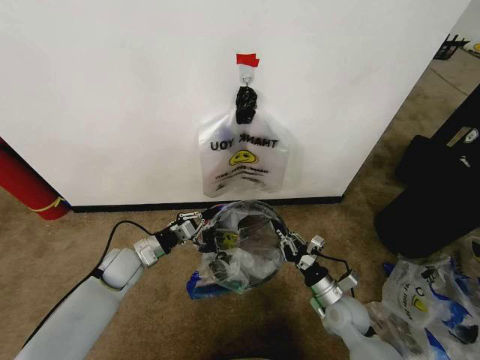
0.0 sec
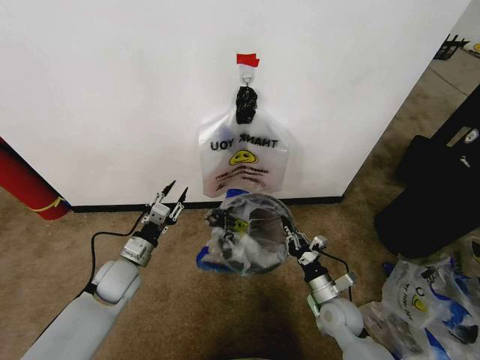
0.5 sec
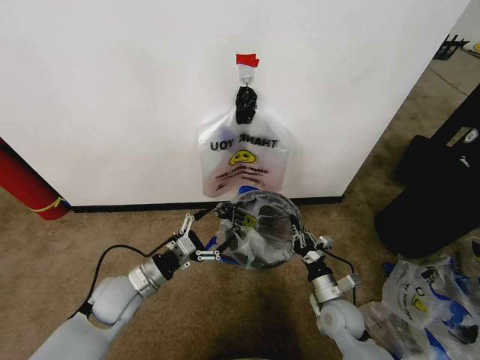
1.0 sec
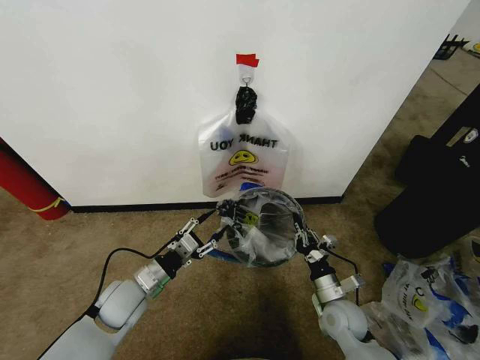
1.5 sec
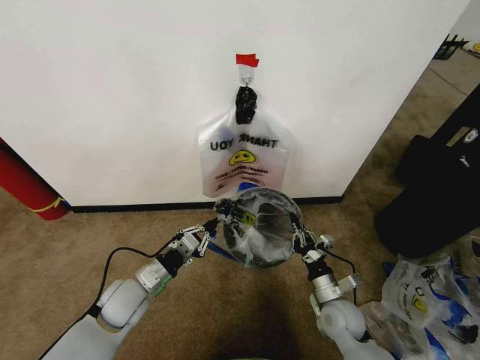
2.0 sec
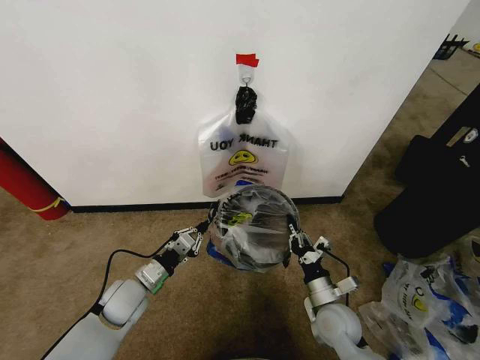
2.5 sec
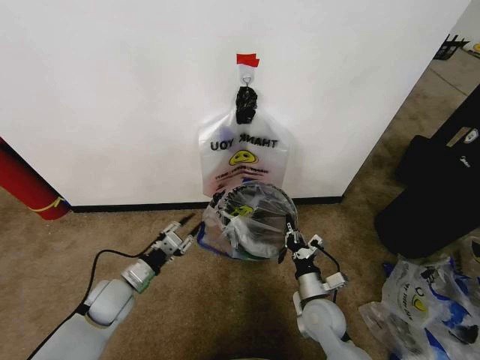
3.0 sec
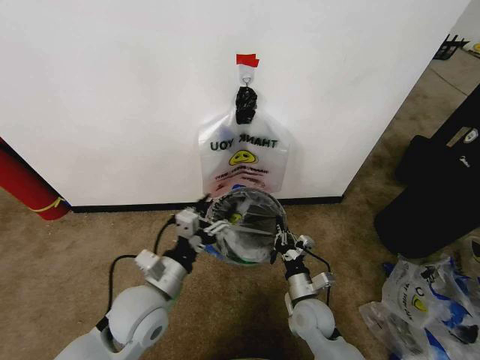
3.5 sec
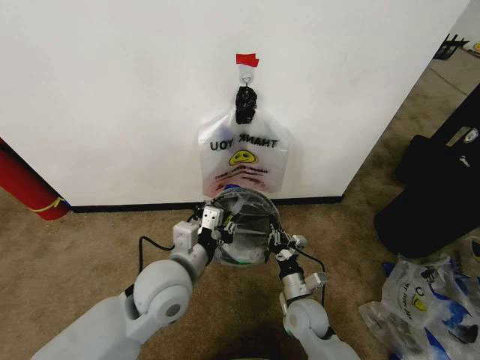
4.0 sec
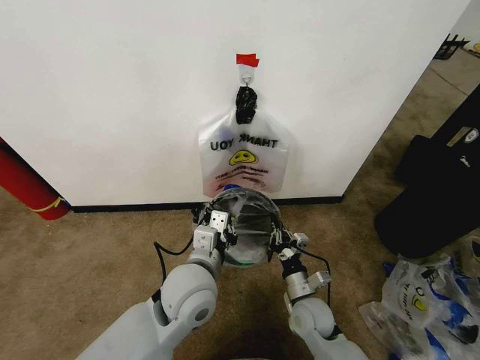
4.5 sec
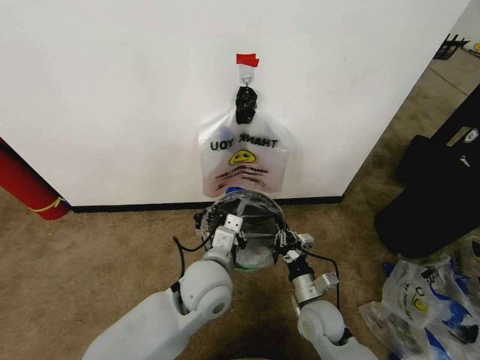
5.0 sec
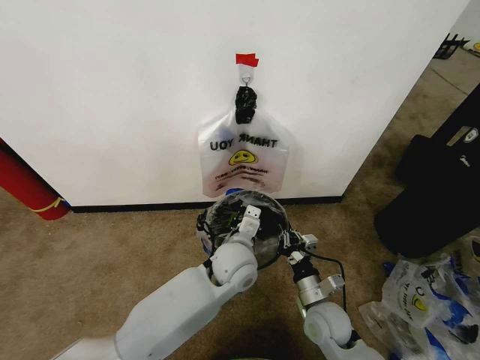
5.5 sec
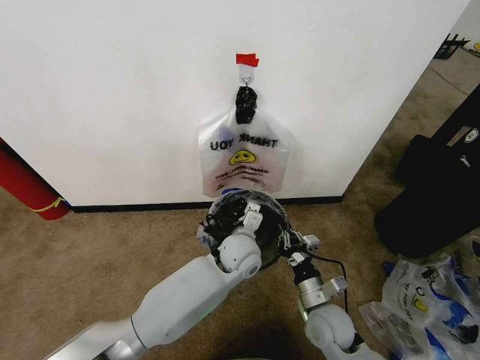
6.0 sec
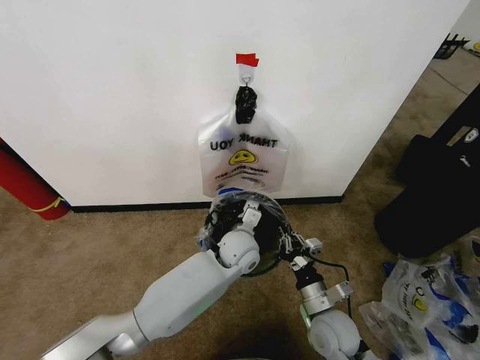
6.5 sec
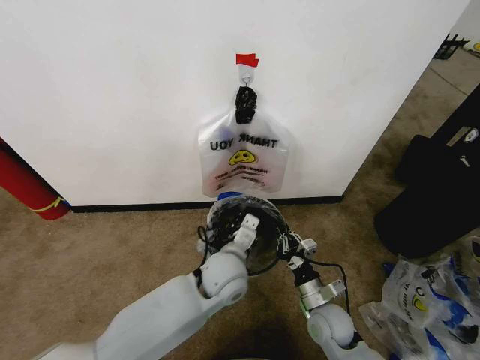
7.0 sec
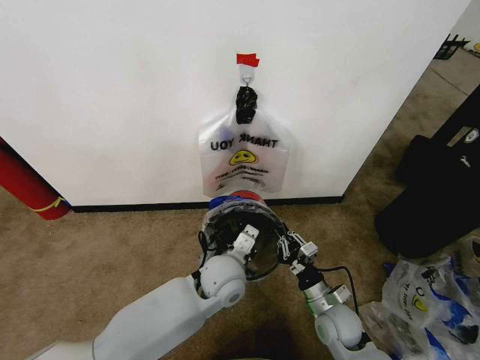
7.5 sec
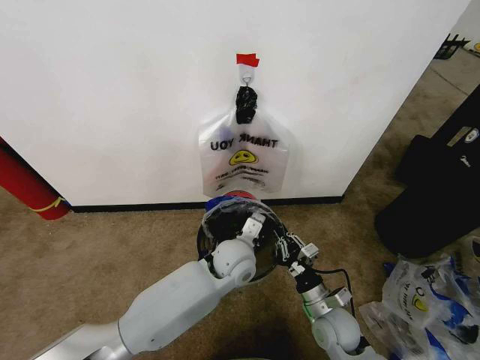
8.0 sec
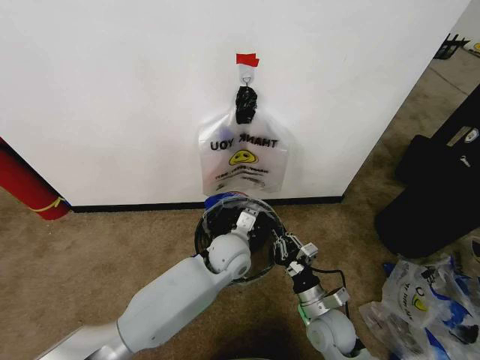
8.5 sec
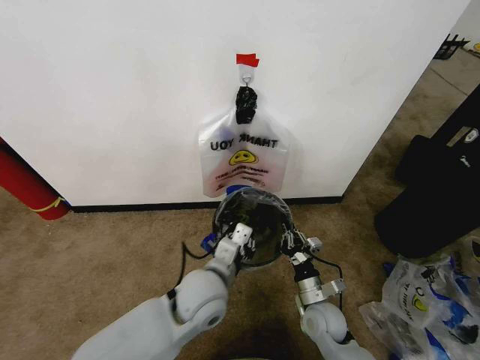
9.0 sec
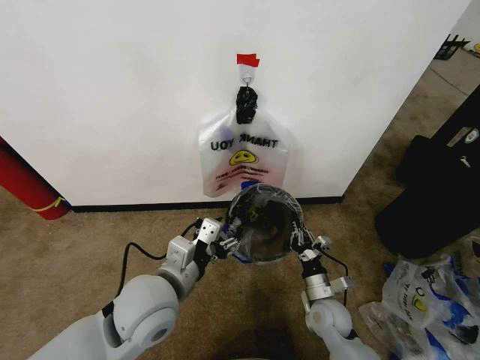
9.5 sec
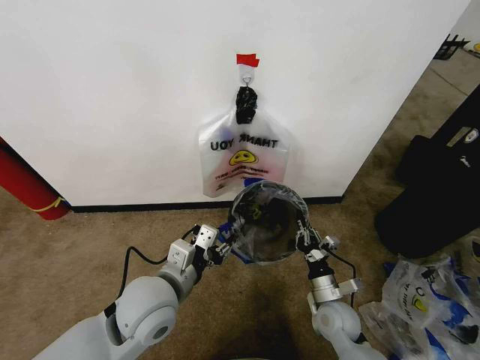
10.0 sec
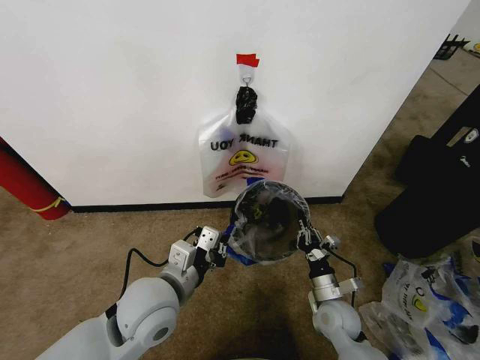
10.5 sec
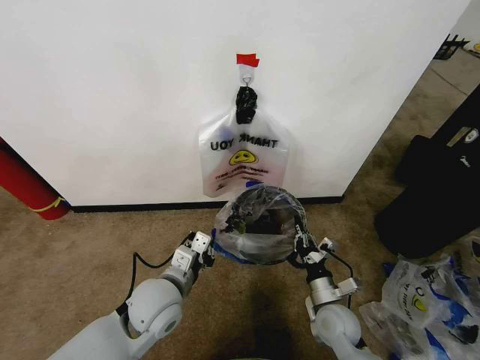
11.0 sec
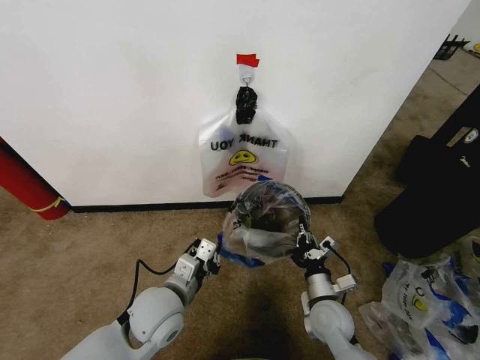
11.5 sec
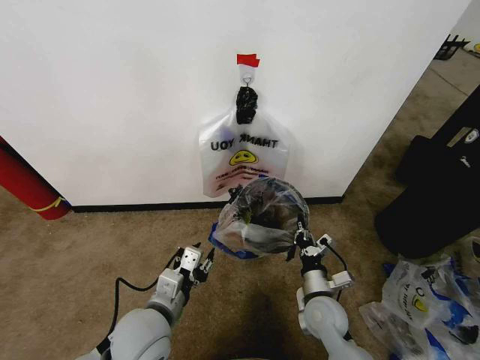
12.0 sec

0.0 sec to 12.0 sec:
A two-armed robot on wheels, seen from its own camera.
Task of the whole recording: Pick up the garbage bag from the wall and place it over the trash bin.
0.0 sec to 2.0 sec: The left gripper shifts some 10 cm backward, and opens and closes again.
2.0 sec to 4.0 sec: The left gripper heads upward and to the right, covering about 15 cm, and opens, then closes again. The right gripper is displaced to the left by some 10 cm.
4.0 sec to 6.0 sec: The right gripper moves some 5 cm. The left gripper moves to the right, forward and downward, approximately 20 cm.
6.0 sec to 8.0 sec: The left gripper reaches approximately 5 cm backward, then returns.
8.0 sec to 10.0 sec: The left gripper moves to the left, backward and upward, some 20 cm, and opens its fingers.
10.0 sec to 12.0 sec: The left gripper heads downward, covering about 5 cm, and closes, then opens again.

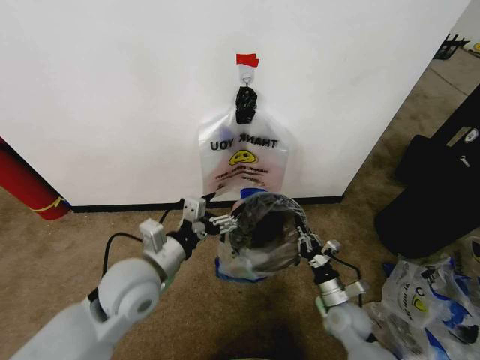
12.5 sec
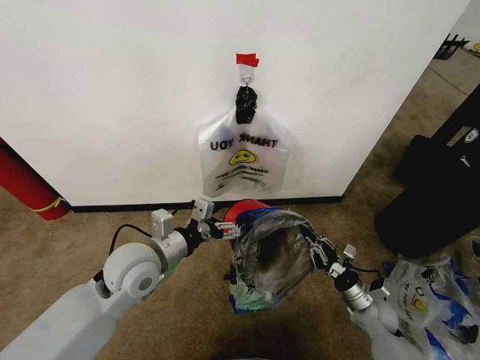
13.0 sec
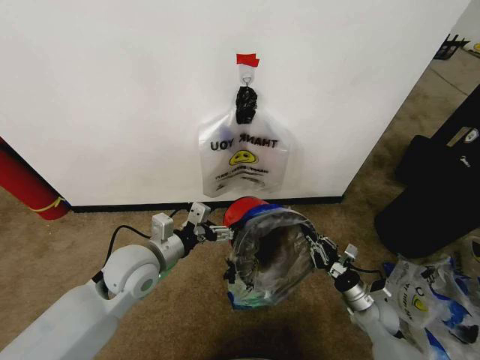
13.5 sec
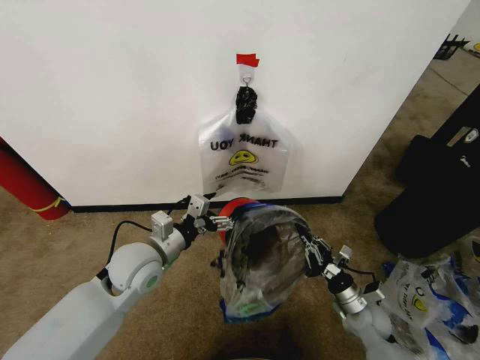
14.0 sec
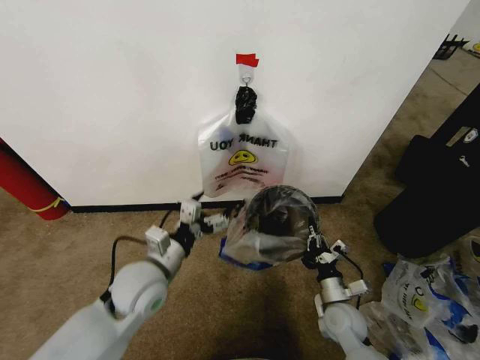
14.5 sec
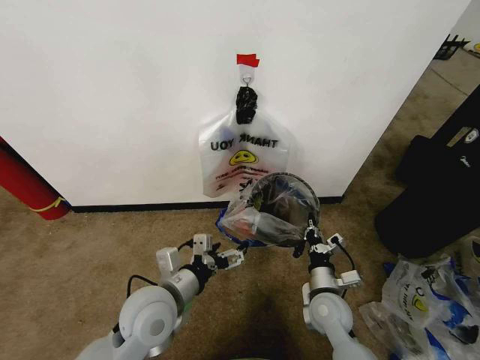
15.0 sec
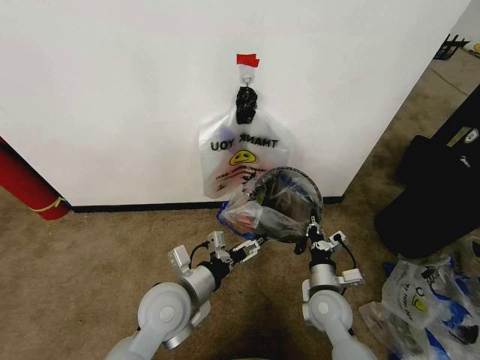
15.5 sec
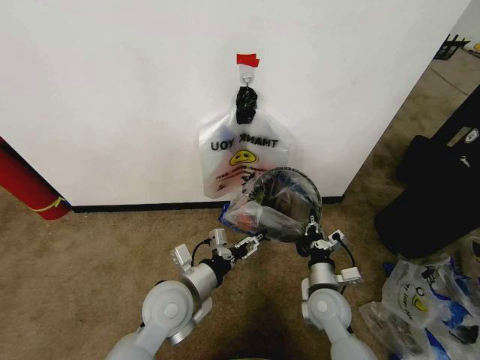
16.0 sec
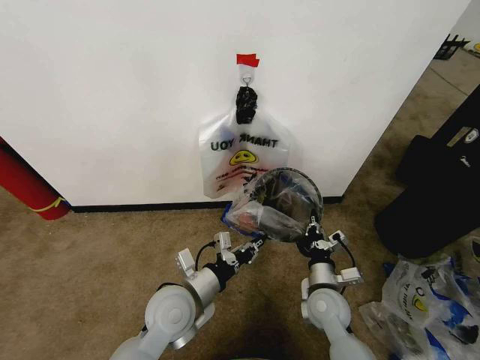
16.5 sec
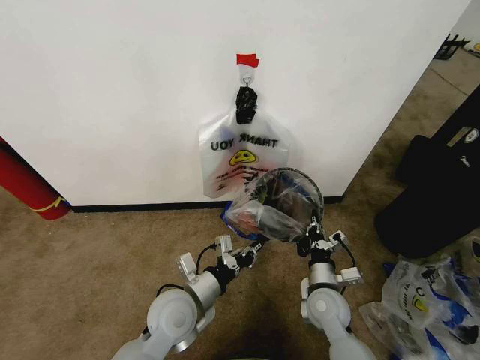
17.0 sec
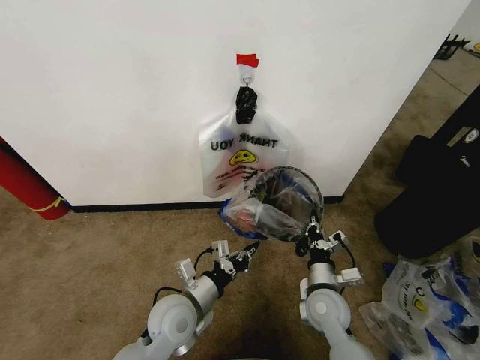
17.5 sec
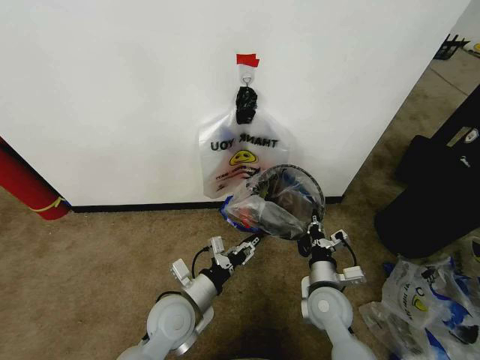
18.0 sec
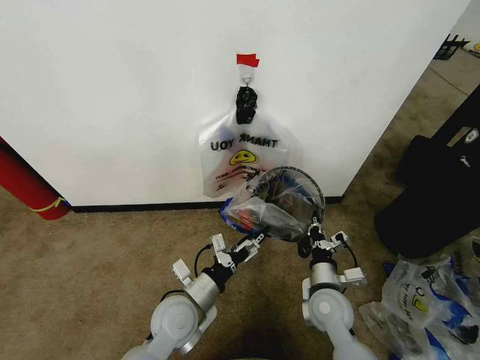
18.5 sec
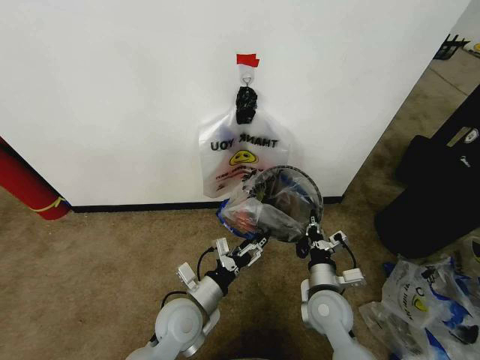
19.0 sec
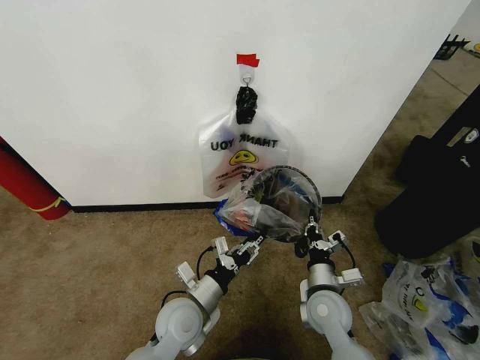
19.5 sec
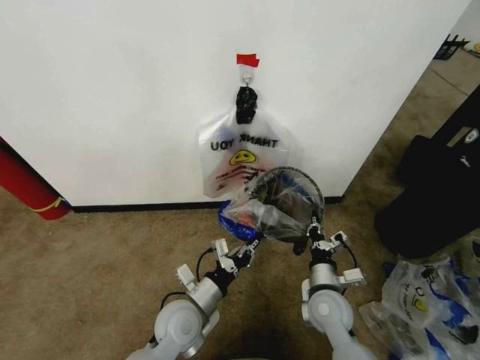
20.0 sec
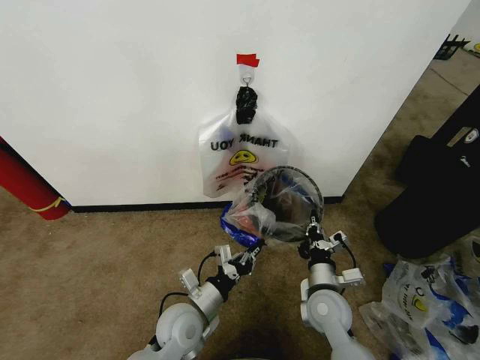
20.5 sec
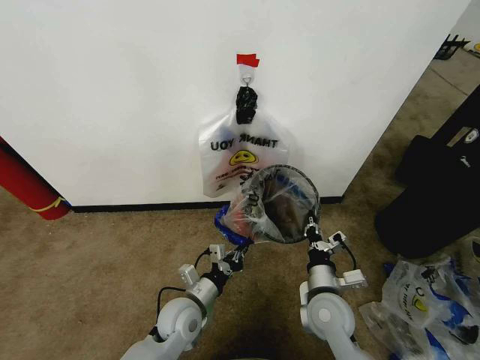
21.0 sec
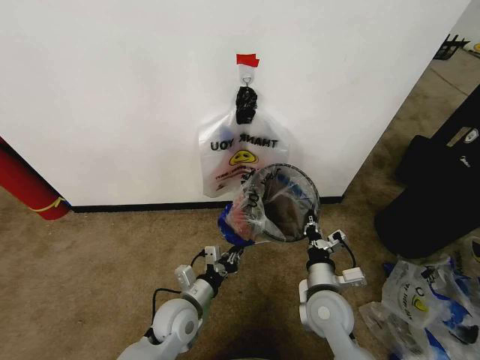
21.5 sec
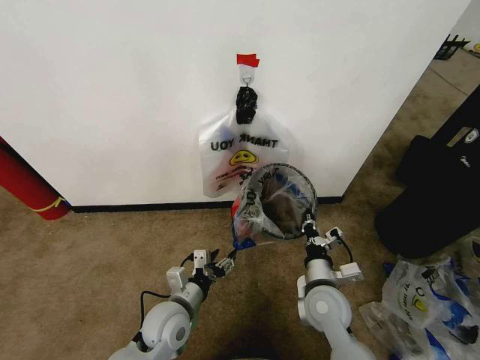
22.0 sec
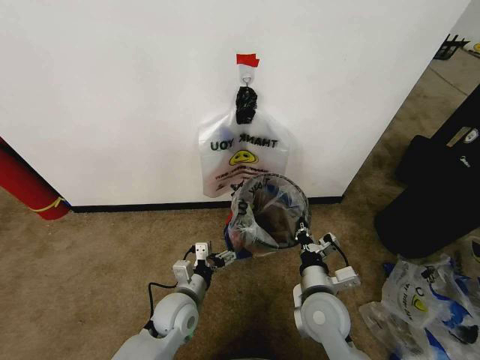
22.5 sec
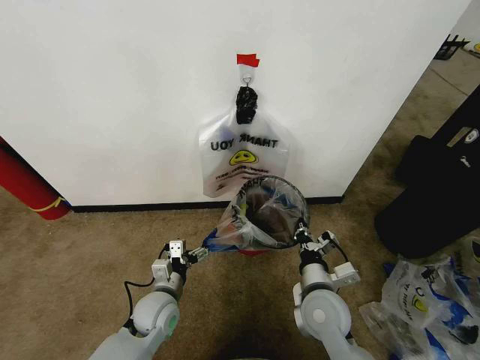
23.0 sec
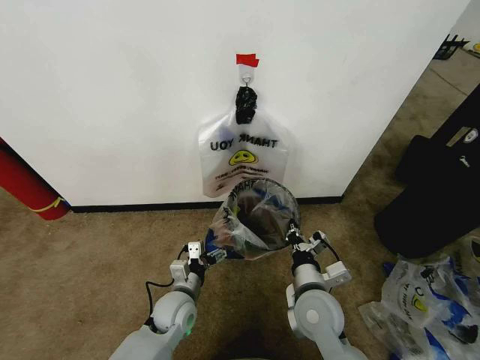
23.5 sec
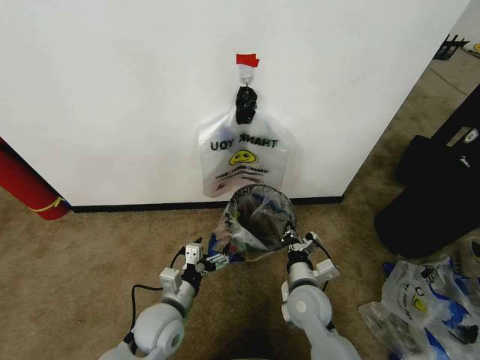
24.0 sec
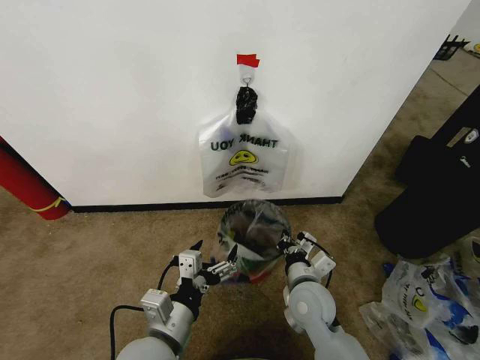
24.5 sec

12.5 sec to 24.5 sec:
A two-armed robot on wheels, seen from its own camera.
Task of the whole recording: Pick up the garbage bag from the wall and place it over the trash bin.
12.5 sec to 14.5 sec: The right gripper travels to the right and back again, approximately 10 cm each way. Meanwhile the left gripper changes place by roughly 5 cm.
14.5 sec to 16.5 sec: The left gripper goes some 5 cm to the right, and closes up. Meanwhile the right gripper shifts approximately 10 cm upward and to the left.
16.5 sec to 18.5 sec: The left gripper opens.
18.5 sec to 20.5 sec: The left gripper closes up.
20.5 sec to 22.5 sec: The left gripper opens its fingers.
22.5 sec to 24.5 sec: The left gripper shifts approximately 15 cm upward and backward.

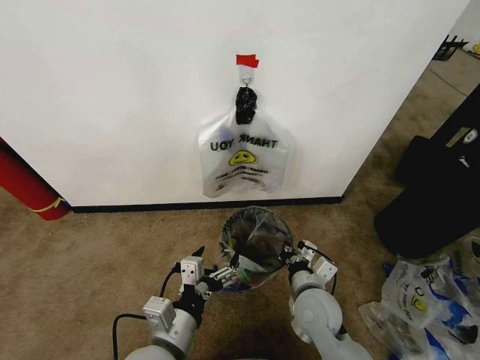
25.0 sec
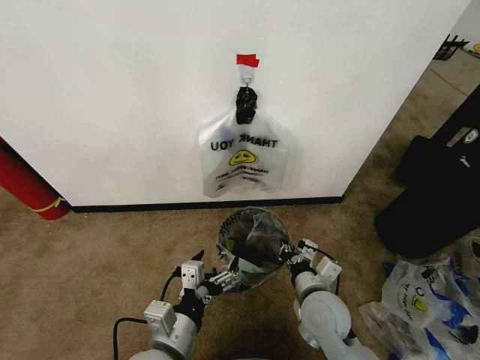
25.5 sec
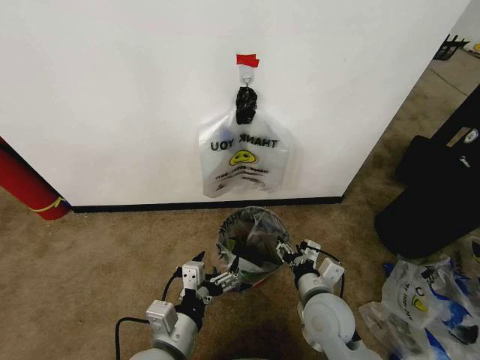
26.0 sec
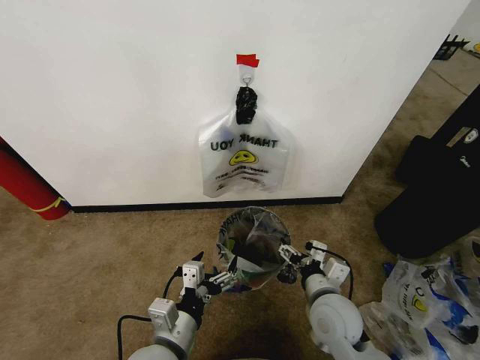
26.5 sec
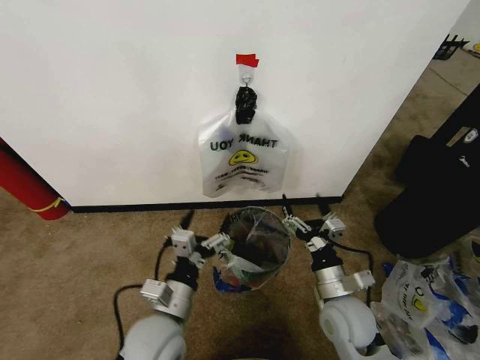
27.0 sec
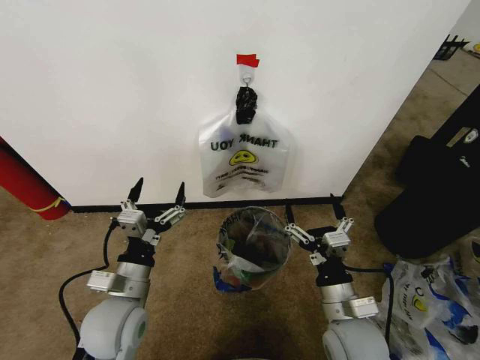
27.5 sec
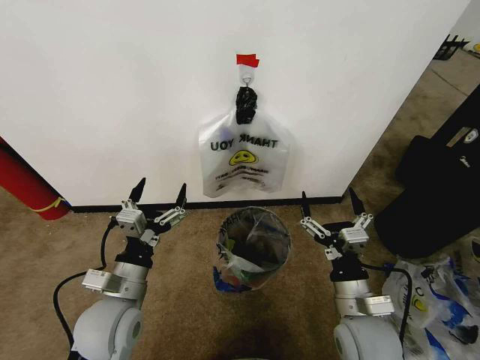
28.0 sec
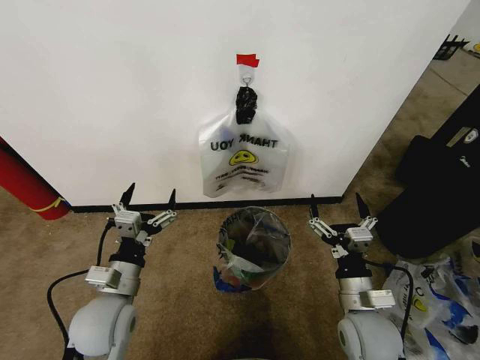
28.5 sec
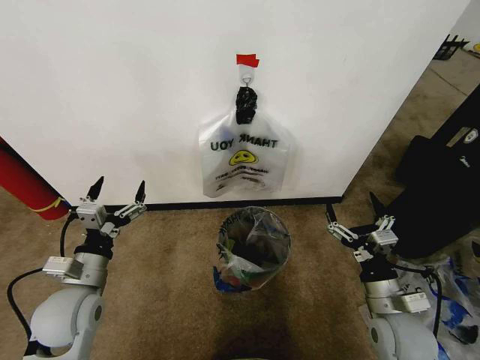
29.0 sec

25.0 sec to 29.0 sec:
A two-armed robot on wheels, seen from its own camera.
Task of the whole recording: Pick up the garbage bag from the wall and place it over the trash bin.
25.0 sec to 27.0 sec: The left gripper changes place by about 5 cm. Meanwhile the right gripper shifts approximately 5 cm to the right, and opens up.
27.0 sec to 29.0 sec: The left gripper moves to the left, roughly 15 cm. The right gripper goes some 10 cm to the right.
